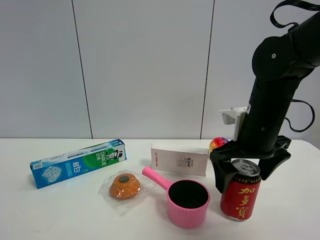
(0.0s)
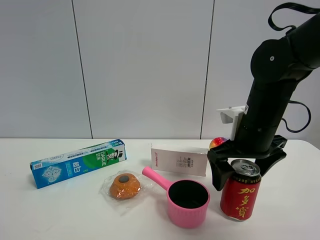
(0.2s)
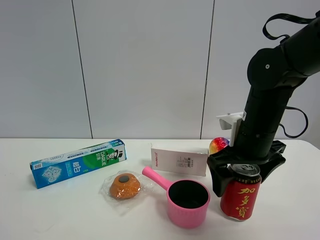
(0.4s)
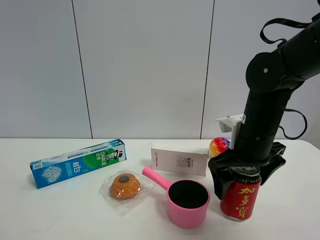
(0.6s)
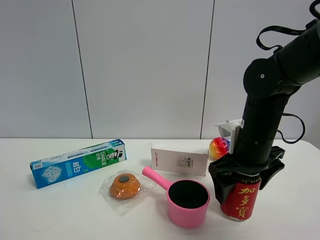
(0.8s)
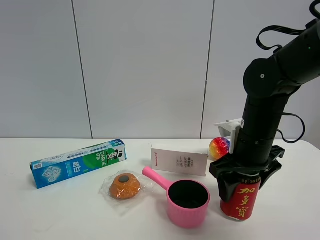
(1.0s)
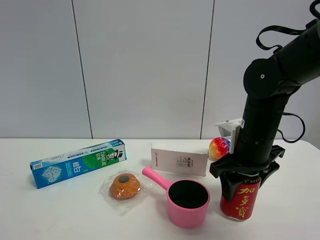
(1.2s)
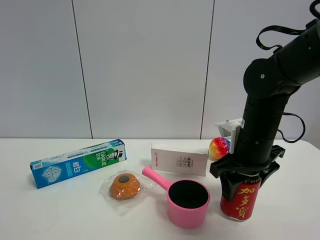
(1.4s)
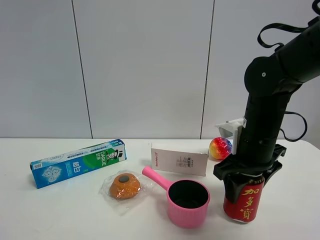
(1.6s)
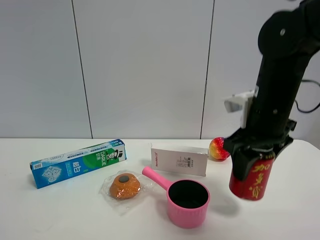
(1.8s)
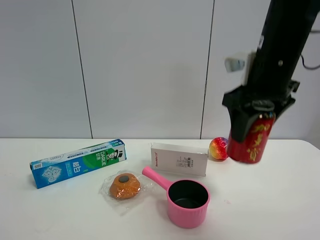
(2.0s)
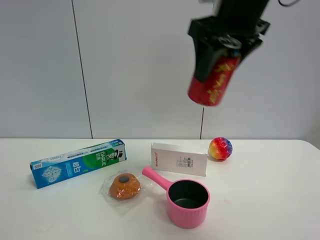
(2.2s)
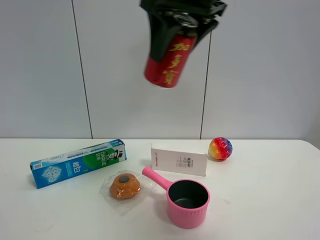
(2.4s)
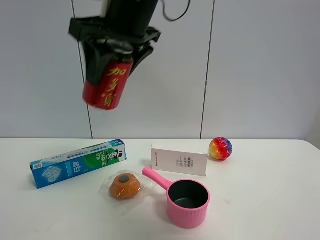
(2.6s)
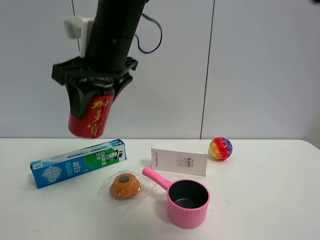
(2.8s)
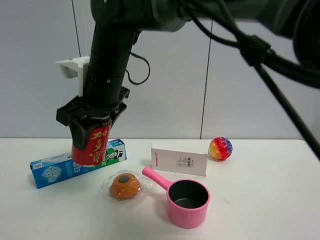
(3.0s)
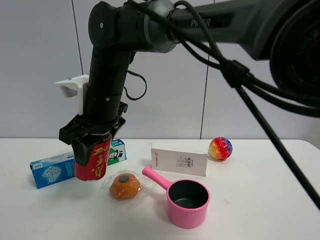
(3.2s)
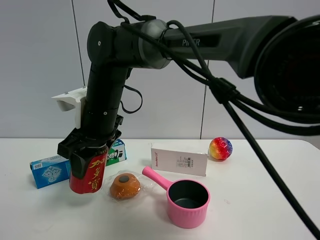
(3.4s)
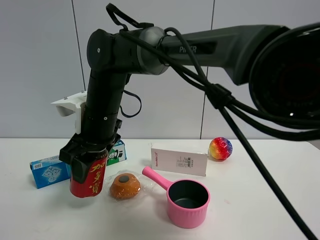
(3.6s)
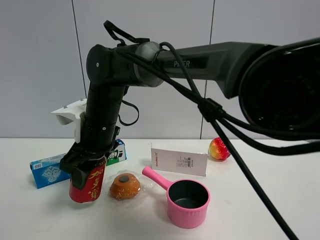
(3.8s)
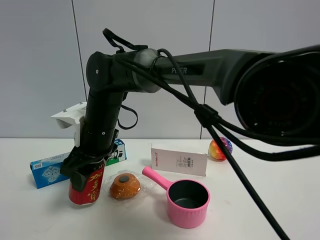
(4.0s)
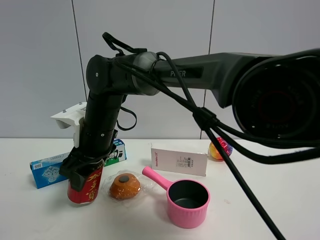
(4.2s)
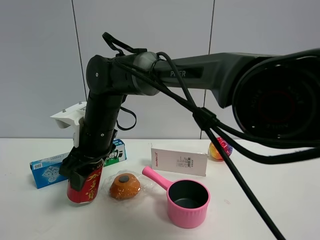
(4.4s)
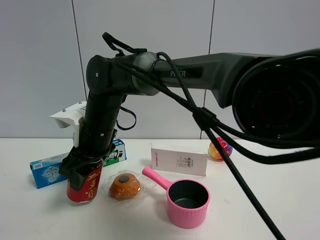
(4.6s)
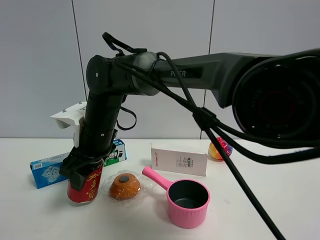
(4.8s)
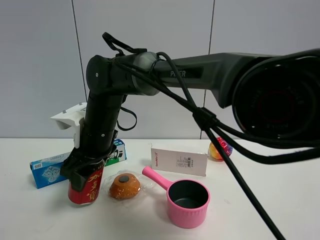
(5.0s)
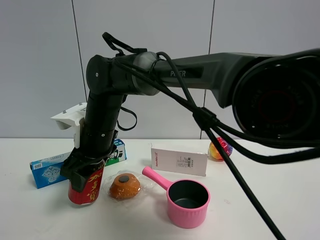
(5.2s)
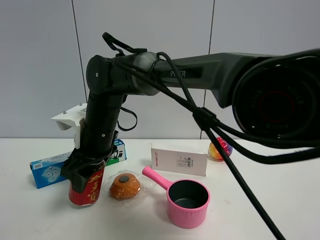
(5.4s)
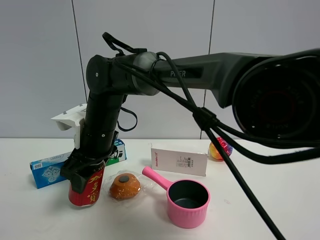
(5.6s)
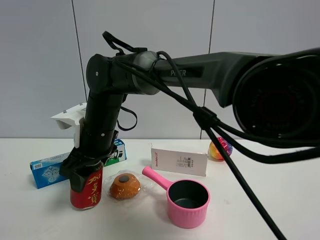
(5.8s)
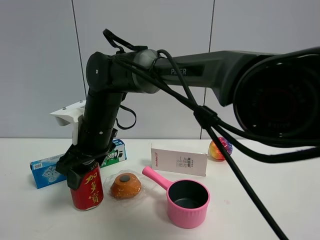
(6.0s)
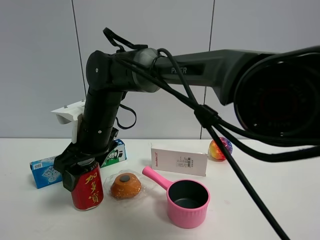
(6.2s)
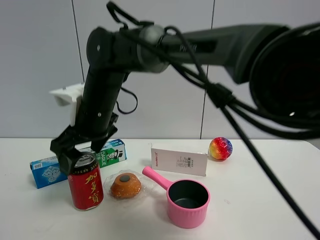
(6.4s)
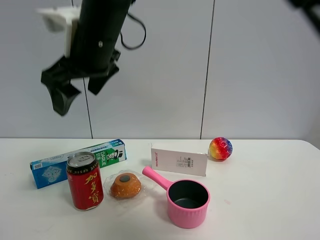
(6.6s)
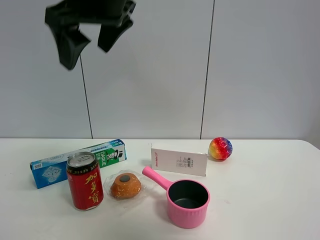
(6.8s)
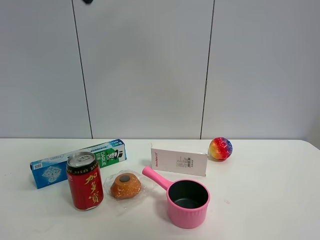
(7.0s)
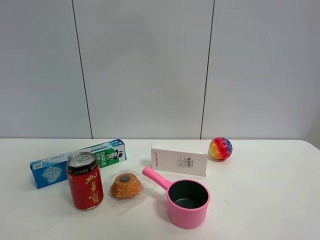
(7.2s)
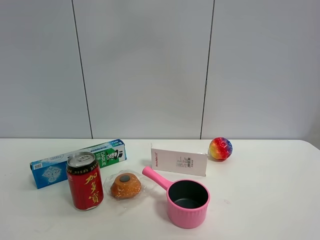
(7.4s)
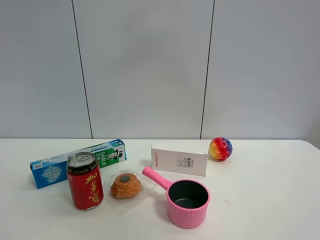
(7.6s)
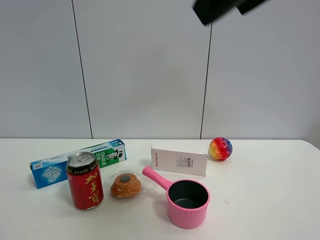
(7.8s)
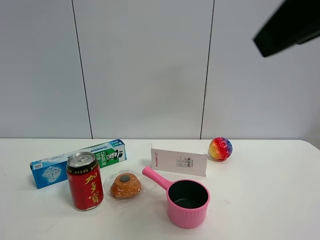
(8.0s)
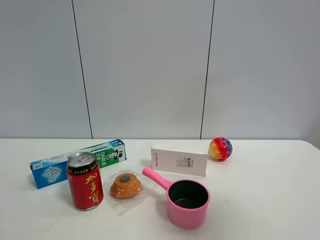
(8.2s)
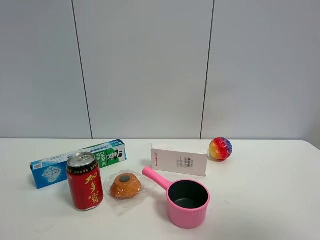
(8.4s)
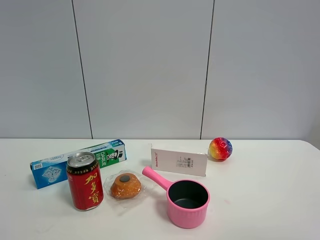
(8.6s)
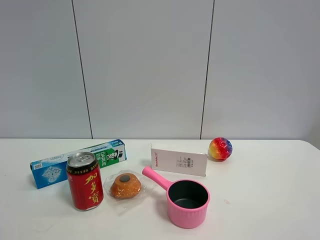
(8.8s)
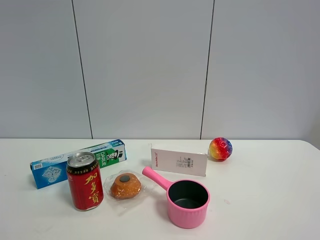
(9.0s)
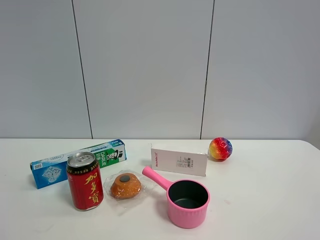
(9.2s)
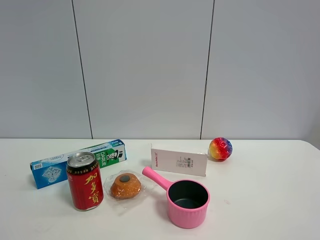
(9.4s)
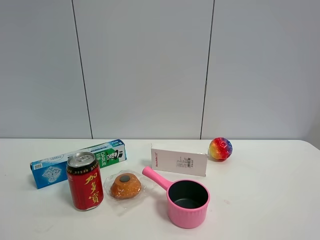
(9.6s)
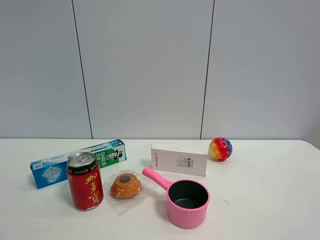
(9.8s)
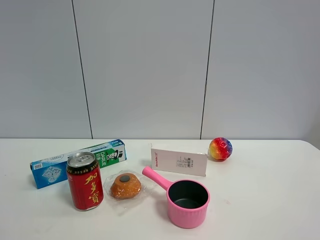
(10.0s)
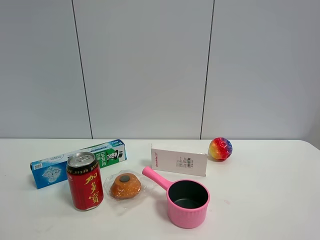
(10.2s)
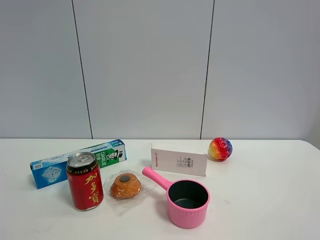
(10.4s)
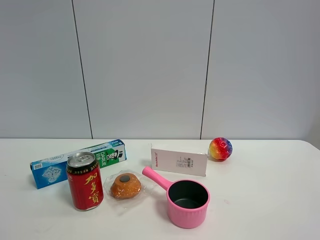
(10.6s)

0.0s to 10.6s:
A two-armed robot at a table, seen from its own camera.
Task of the whole recording: the gripper move the object.
Step, 1.4s to 6.2s: Place the Jia Duo Bao on the table with the right gripper.
0.0s to 1.6s: The right gripper closes.
1.6s to 3.0s: The right gripper goes some 25 cm to the left.
3.0s to 4.6s: The right gripper moves downward, some 10 cm.
4.6s to 6.0s: The two grippers keep their place.
6.0s to 7.6s: The right gripper travels upward, to the right and backward by roughly 40 cm, and opens its fingers.
7.6s to 9.0s: The right gripper goes about 35 cm backward, to the right and downward.

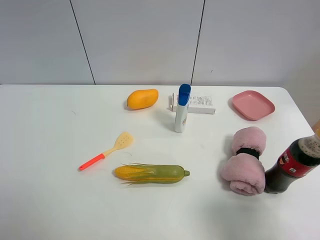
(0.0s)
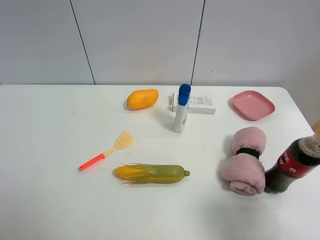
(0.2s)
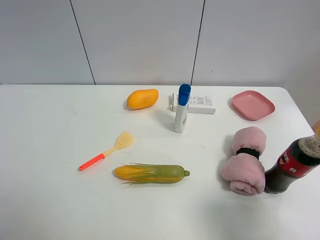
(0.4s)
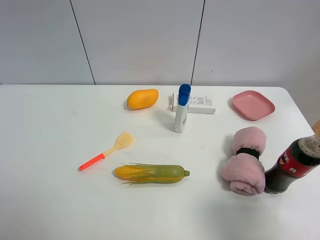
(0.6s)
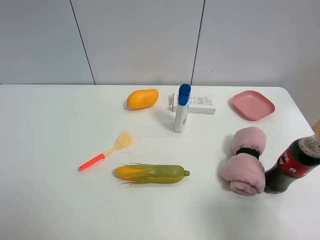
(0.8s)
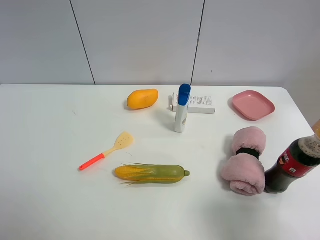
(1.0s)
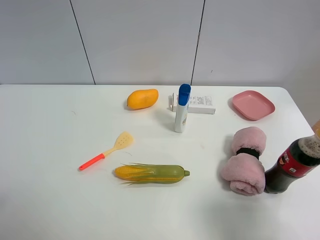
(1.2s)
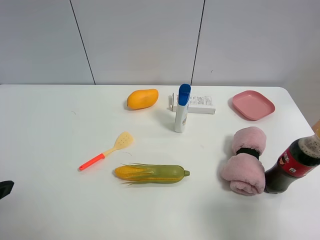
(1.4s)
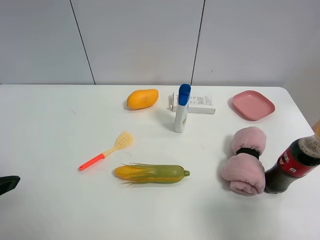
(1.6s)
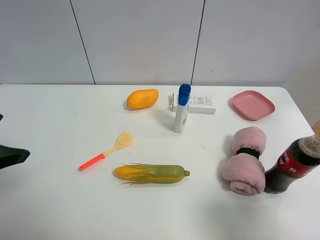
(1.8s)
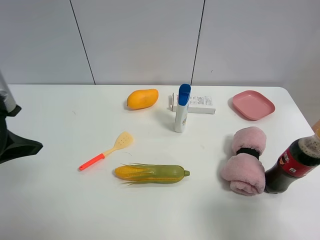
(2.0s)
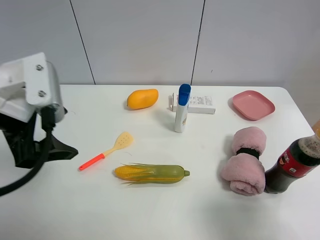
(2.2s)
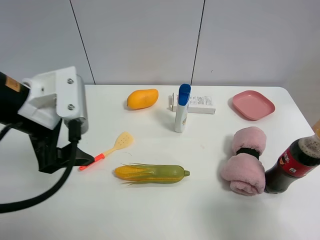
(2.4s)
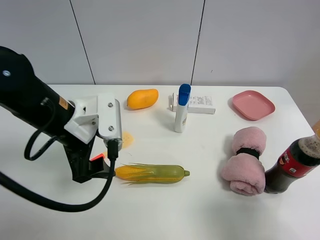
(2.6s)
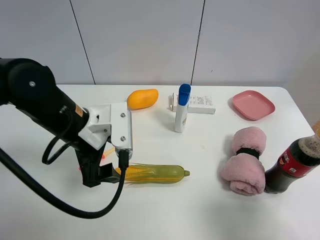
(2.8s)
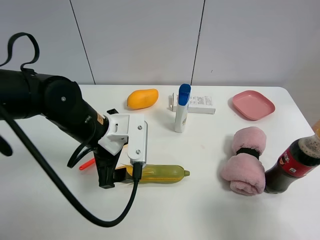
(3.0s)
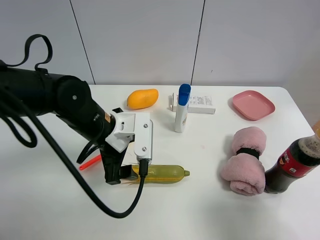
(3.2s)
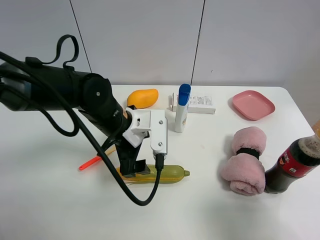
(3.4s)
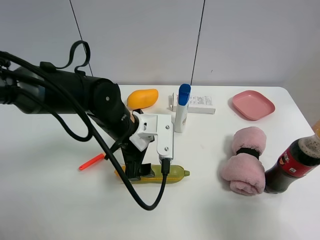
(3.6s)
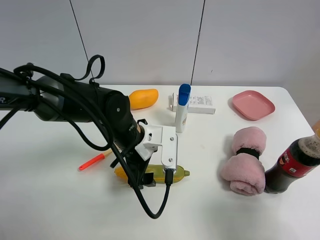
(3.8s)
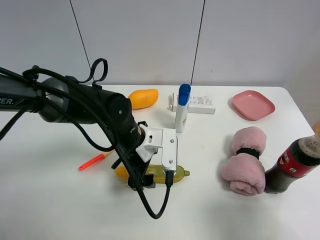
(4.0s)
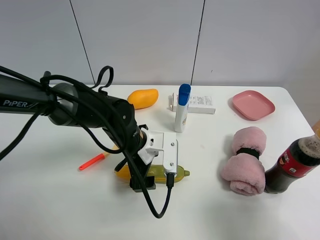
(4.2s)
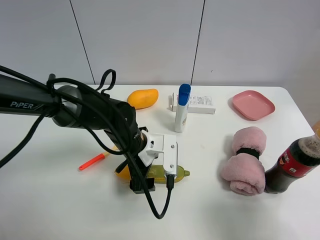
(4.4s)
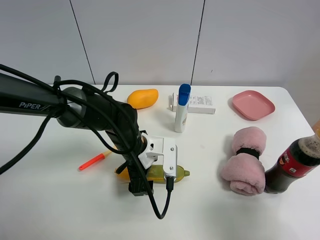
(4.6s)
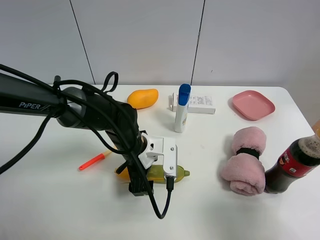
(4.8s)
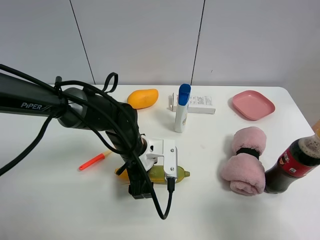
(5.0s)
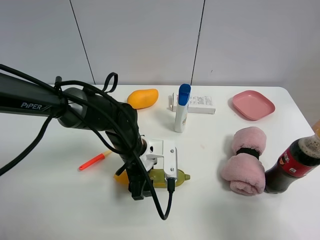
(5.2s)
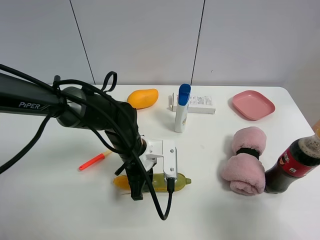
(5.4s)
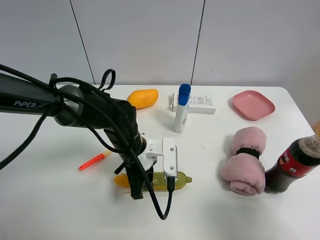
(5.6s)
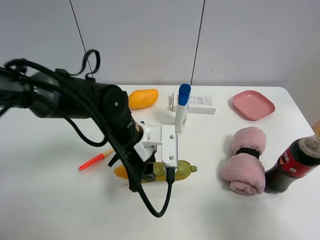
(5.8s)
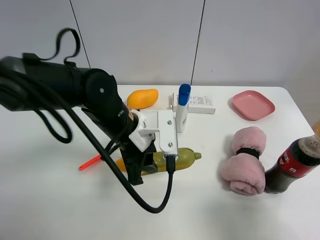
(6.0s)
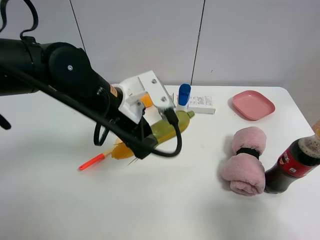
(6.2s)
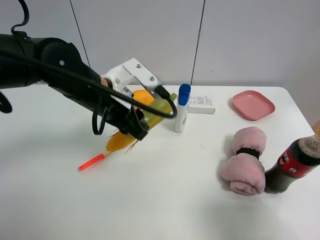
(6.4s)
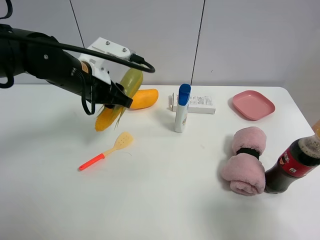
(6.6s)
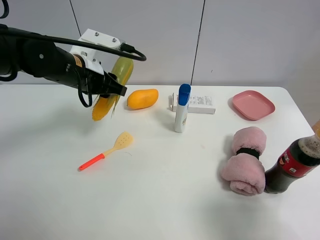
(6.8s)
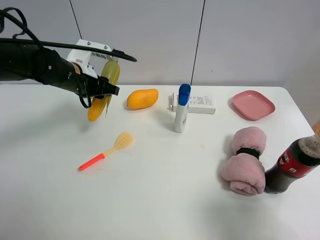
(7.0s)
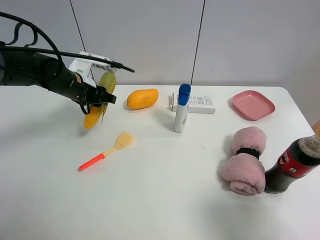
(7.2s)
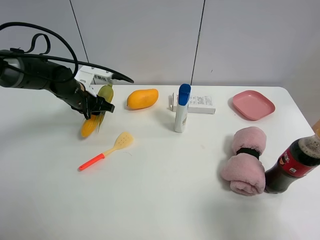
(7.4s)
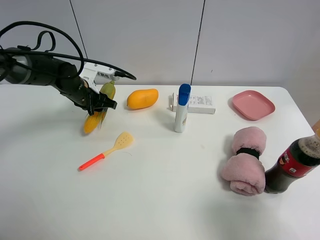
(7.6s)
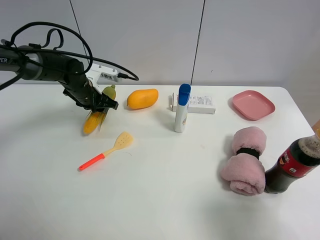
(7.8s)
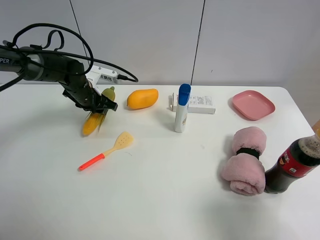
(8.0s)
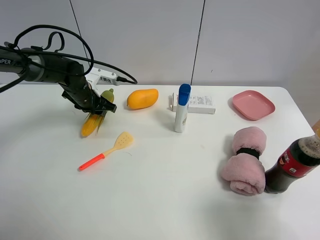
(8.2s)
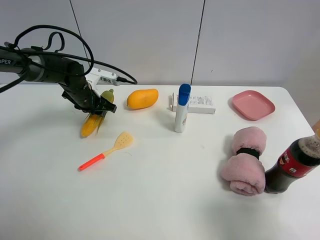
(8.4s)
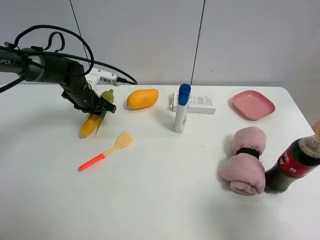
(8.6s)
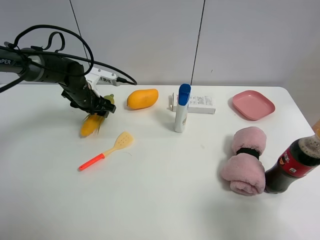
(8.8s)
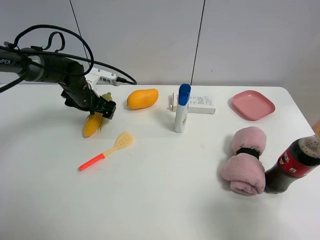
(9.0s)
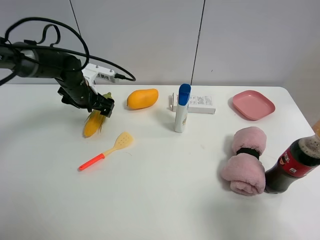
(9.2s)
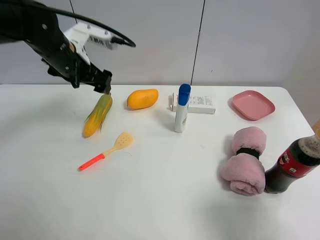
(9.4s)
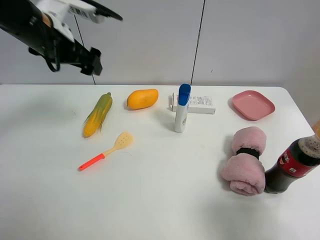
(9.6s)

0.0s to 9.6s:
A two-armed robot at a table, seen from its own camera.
Task of the whole recording: the gripper move the object.
1.6s to 3.2s: The left gripper goes roughly 25 cm to the right, forward and downward.
3.2s to 4.8s: The left gripper shifts some 10 cm downward.
4.8s to 6.4s: The left gripper shifts some 15 cm upward and to the left, and closes up.
6.4s to 8.0s: The left gripper heads forward, downward and to the left, covering approximately 20 cm.
8.0s to 9.6s: The left gripper heads upward and backward, covering approximately 25 cm, and opens its fingers.

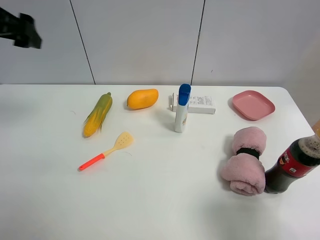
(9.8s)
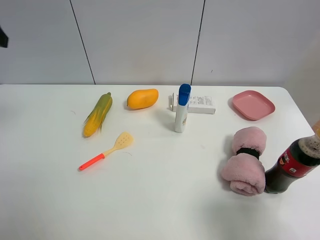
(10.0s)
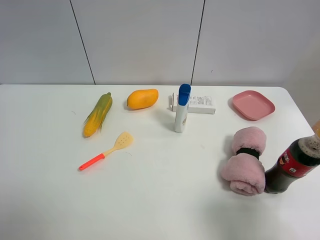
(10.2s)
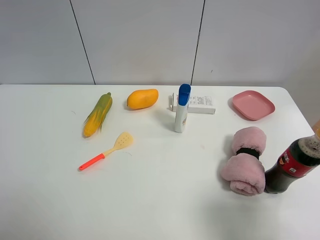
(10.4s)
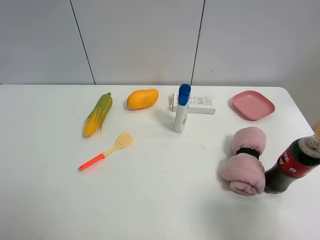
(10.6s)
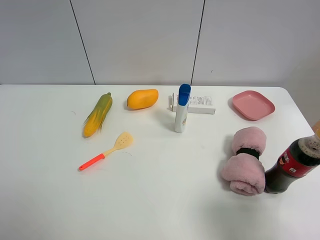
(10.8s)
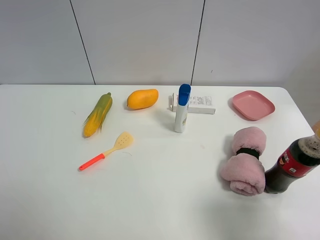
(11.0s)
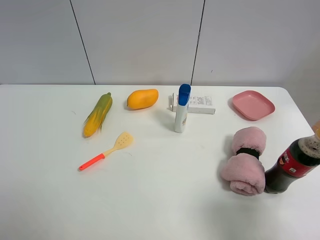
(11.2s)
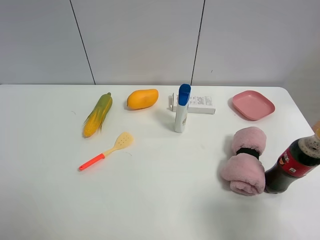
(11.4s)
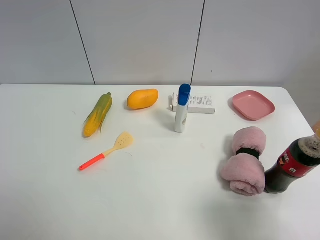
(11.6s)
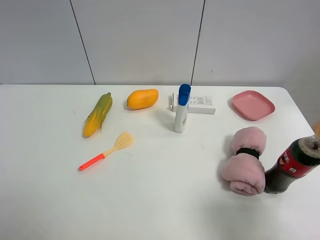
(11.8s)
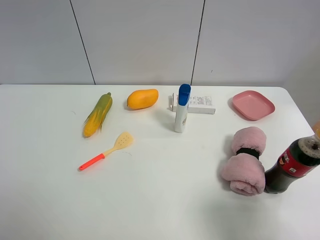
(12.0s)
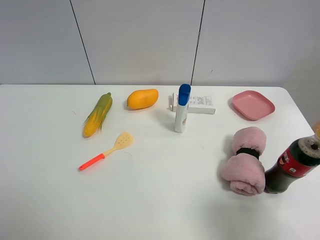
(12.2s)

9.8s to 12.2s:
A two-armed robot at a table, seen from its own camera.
Task of the whole recording: the gripper move the object.
9.8s to 11.0s: The left gripper heads backward, covering approximately 30 cm.
